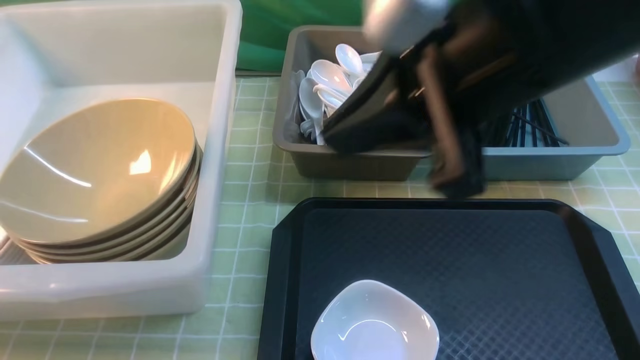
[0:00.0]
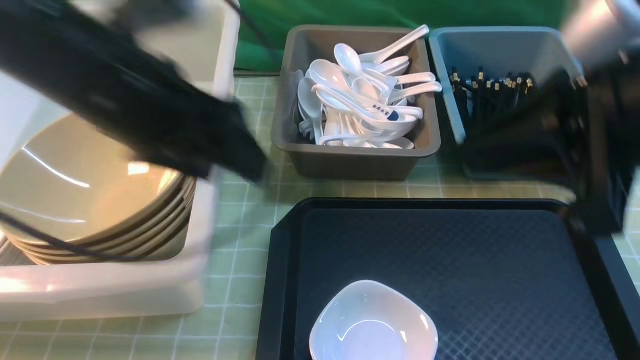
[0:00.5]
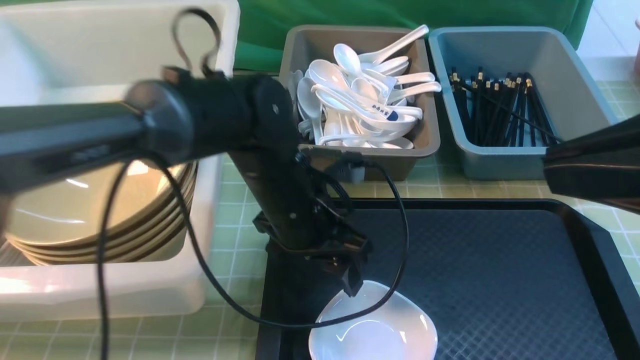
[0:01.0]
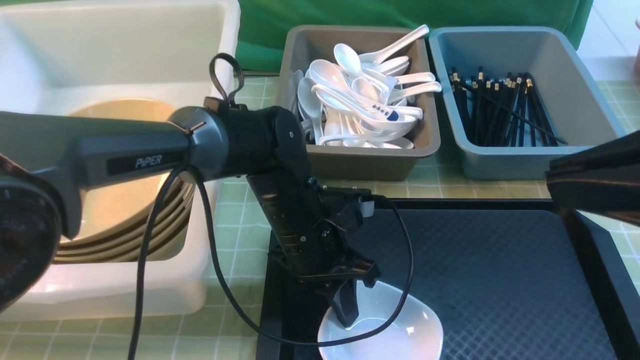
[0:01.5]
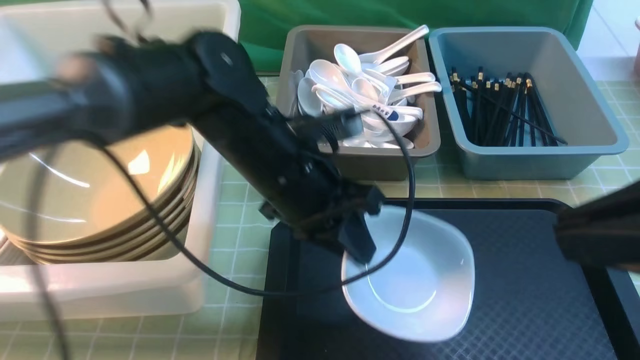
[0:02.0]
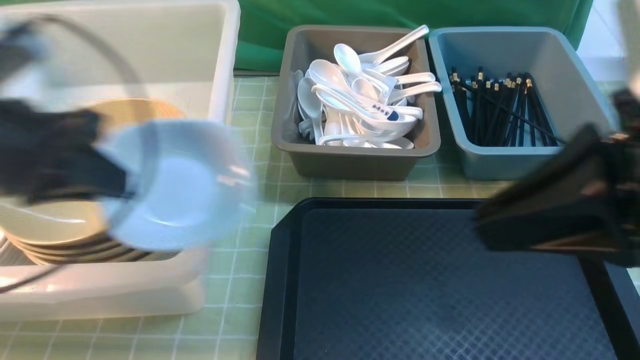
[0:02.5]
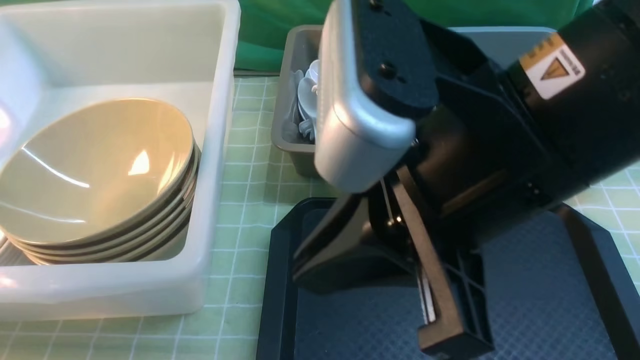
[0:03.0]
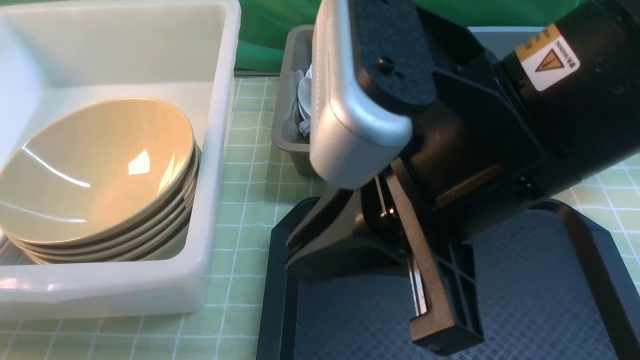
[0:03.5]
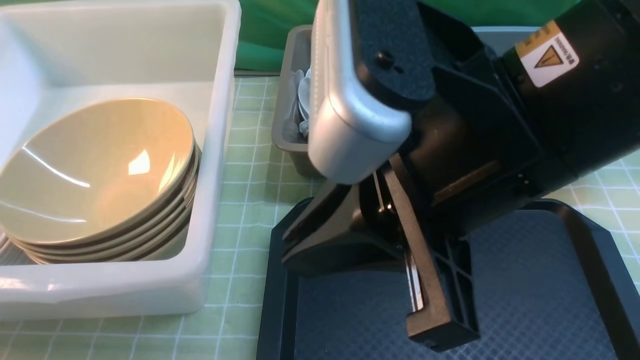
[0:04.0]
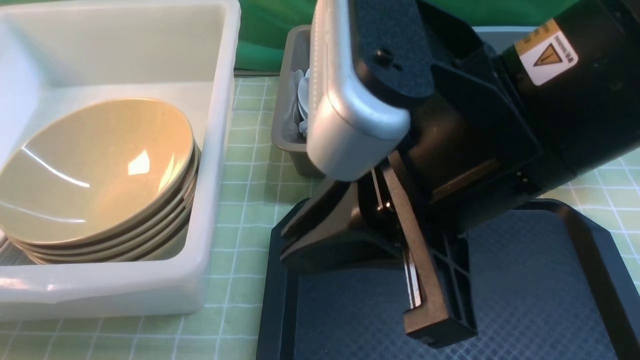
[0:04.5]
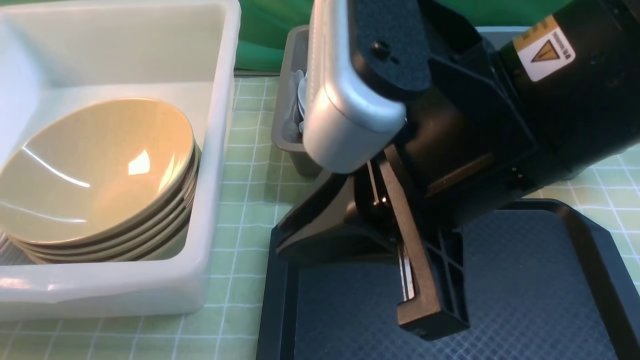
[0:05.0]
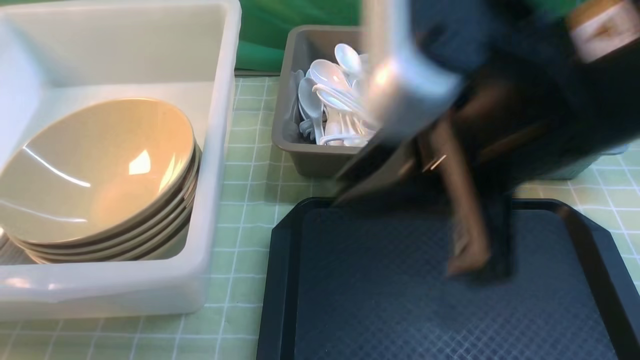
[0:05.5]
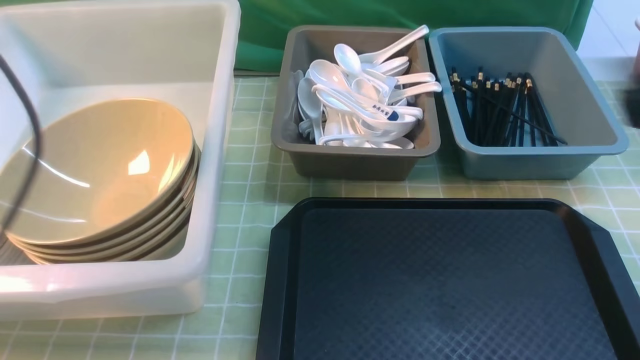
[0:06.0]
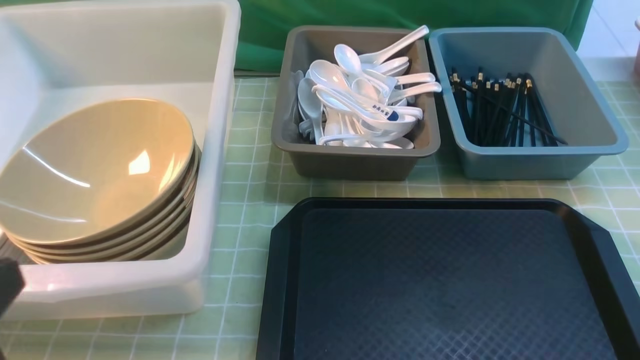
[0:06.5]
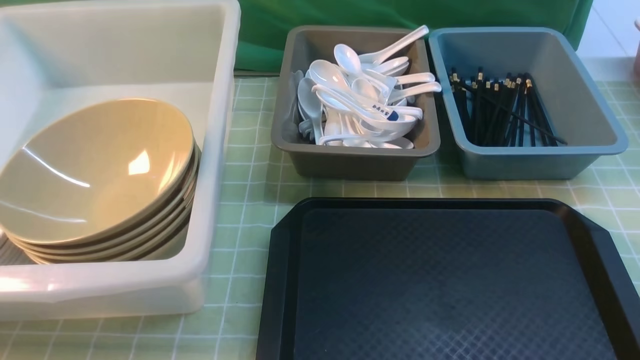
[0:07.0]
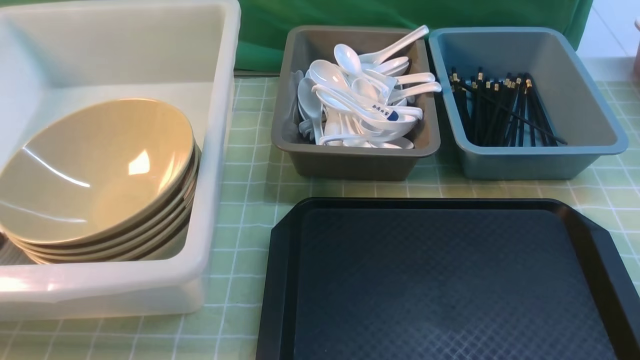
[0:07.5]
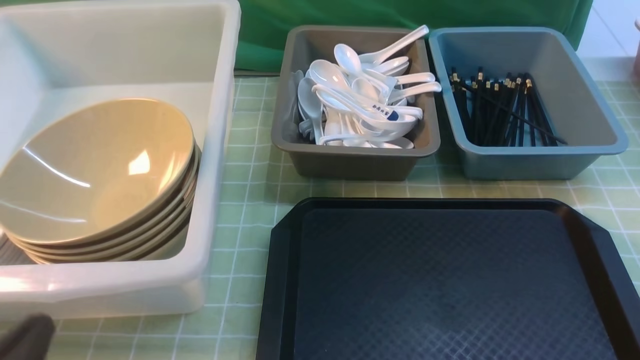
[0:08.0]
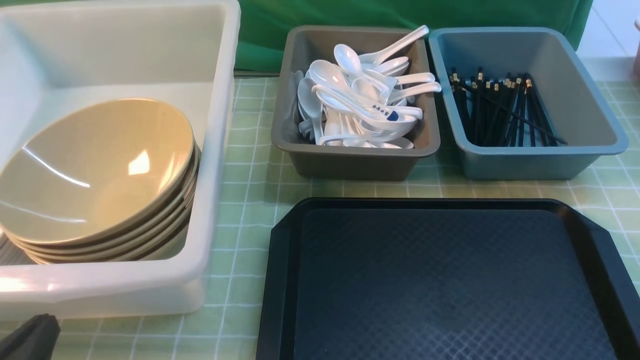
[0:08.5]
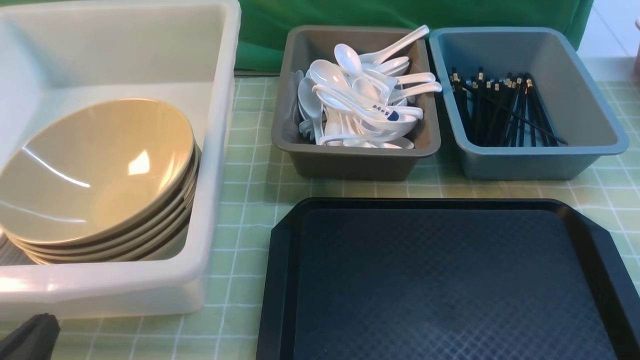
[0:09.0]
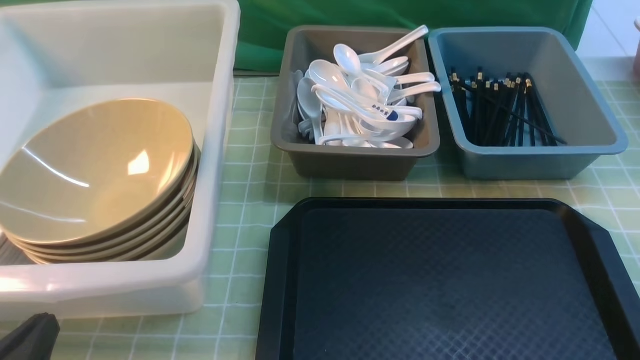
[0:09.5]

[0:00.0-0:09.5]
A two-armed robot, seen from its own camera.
Task of the whole recording: on green table put chopsticks spoon bowls plates into blue grey white boxes.
Step, 0:00.0 to 0:02.0: use the left arm to grab the plate.
Step, 0:02.5 to 0:05.5: use the left arm to put the plate into the large storage box on the left.
0:00.0 to 0:02.0: The left gripper moves to the right, roughly 35 cm, and closes its fingers. The right gripper shifts some 15 cm backward and to the right.
0:02.0 to 0:04.0: The left gripper is displaced to the left by approximately 40 cm. The right gripper goes some 15 cm to the left.
0:04.0 to 0:05.5: The right gripper moves roughly 5 cm, while the left gripper travels to the right by some 5 cm, and opens.
0:05.5 to 0:07.5: The right gripper heads to the right, downward and backward, covering roughly 25 cm. Meanwhile the left gripper travels backward and to the right by about 20 cm, and closes.
0:07.5 to 0:09.5: The left gripper shifts roughly 10 cm downward.

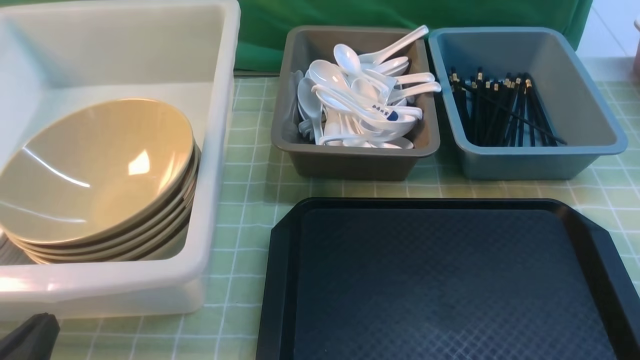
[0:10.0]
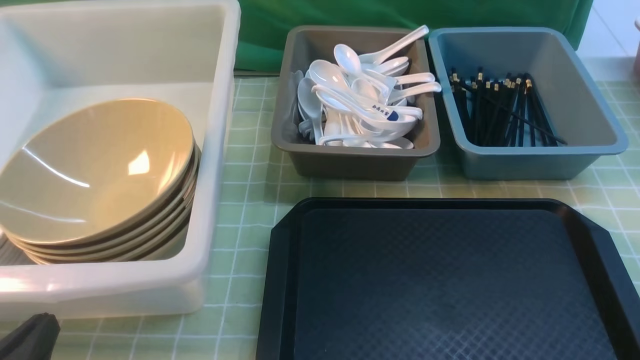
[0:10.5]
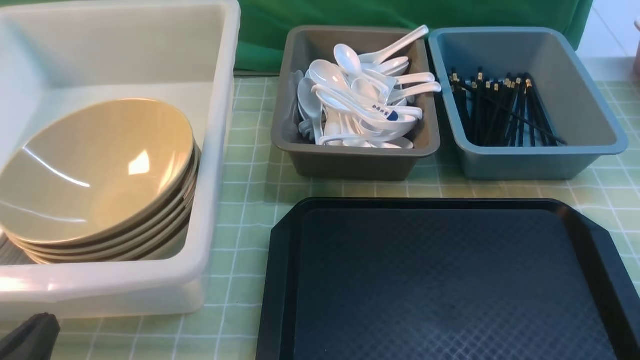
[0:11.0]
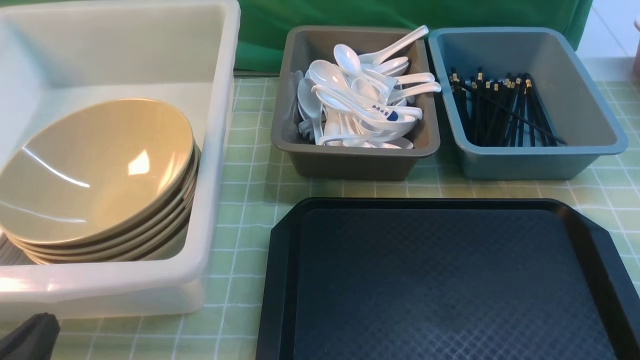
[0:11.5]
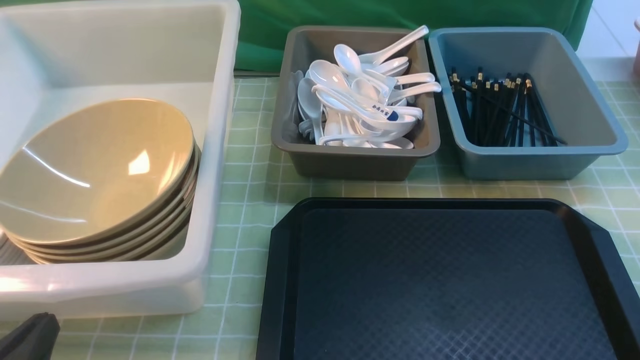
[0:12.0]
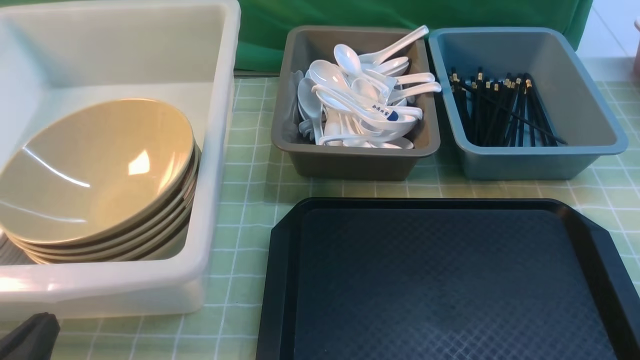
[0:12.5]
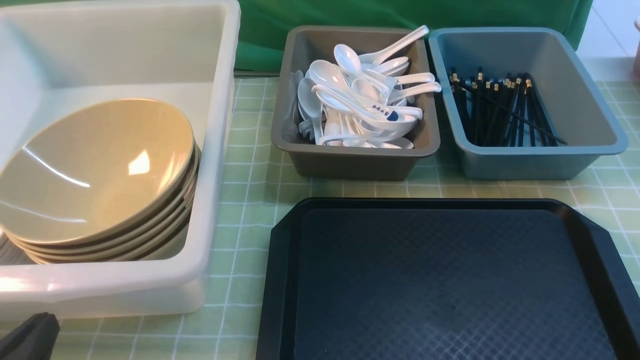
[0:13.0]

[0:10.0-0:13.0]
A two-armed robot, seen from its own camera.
Task of the whole recording: on green table put chopsticks spoon bowls plates into blue grey white boxes.
0:10.0 to 0:13.0: Both grippers stay put.

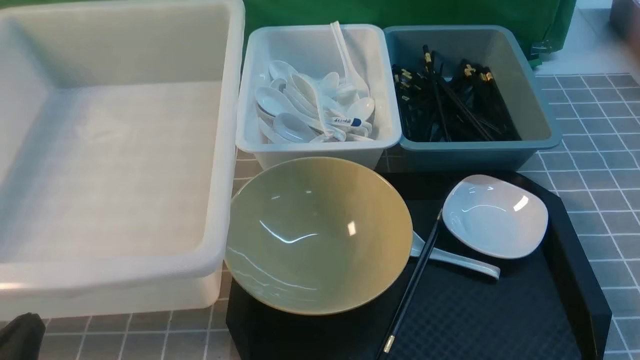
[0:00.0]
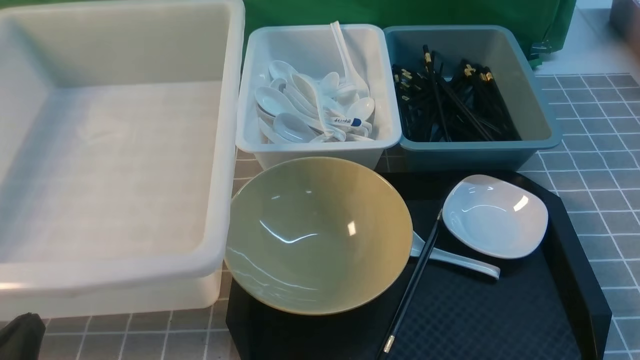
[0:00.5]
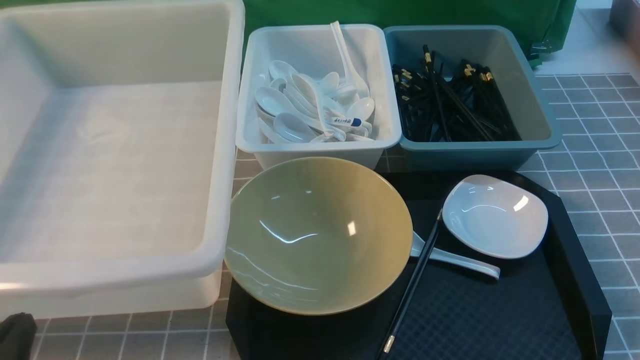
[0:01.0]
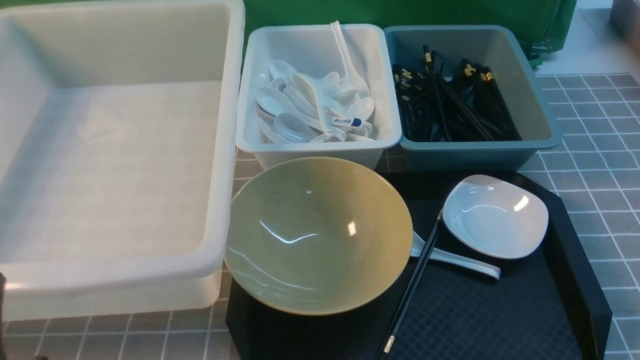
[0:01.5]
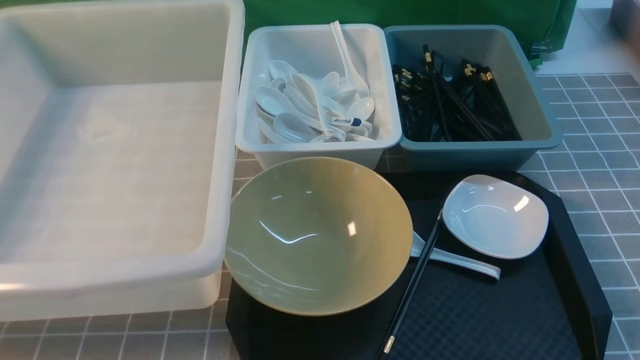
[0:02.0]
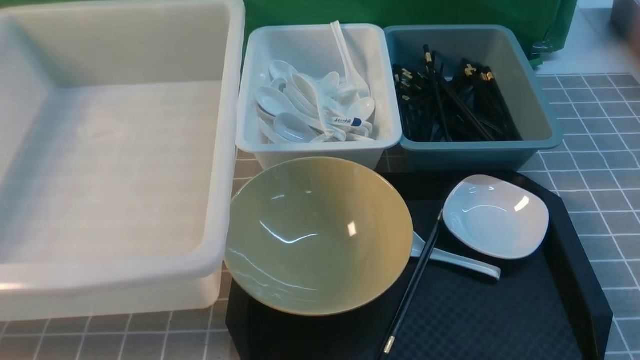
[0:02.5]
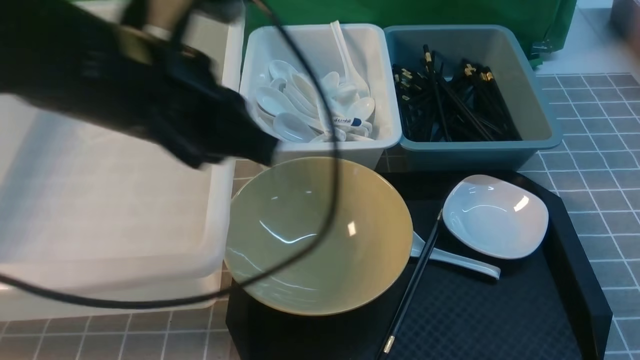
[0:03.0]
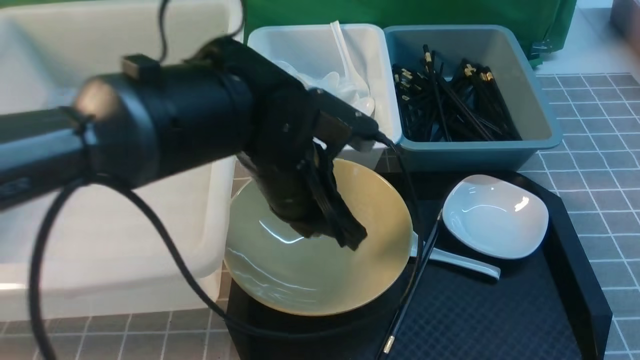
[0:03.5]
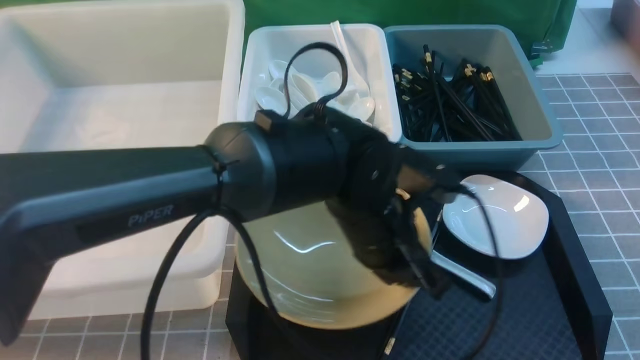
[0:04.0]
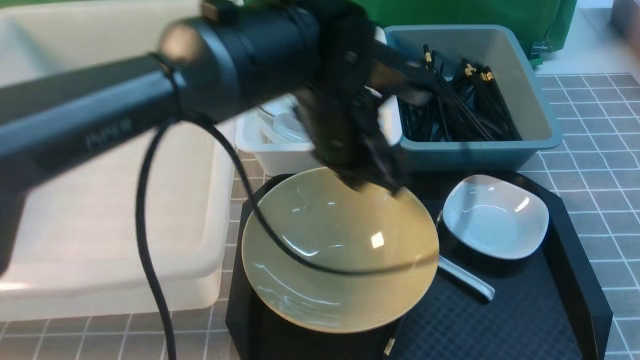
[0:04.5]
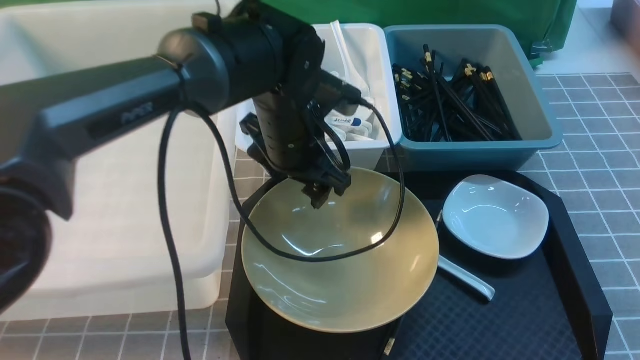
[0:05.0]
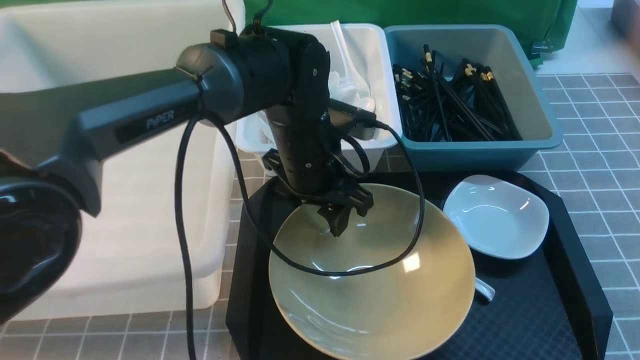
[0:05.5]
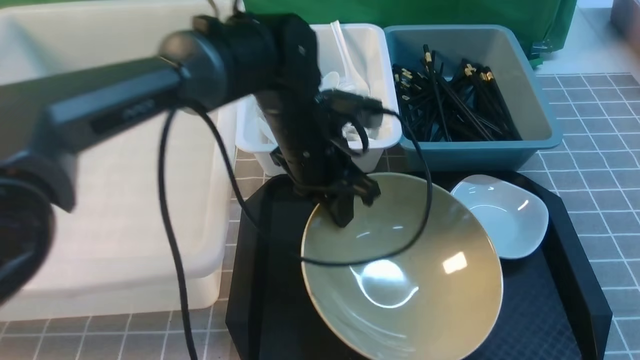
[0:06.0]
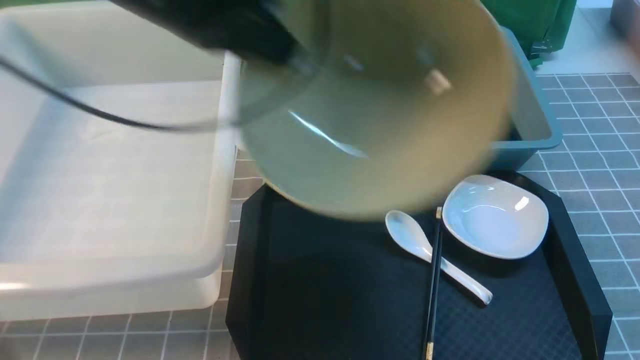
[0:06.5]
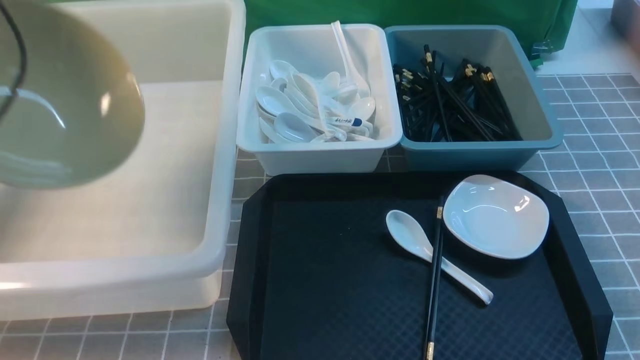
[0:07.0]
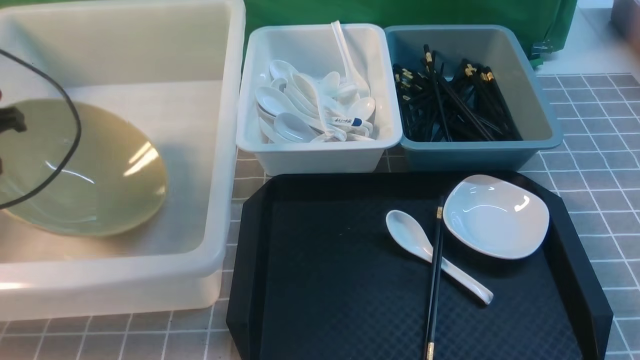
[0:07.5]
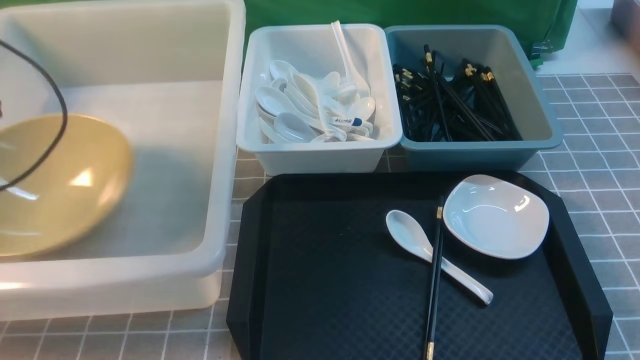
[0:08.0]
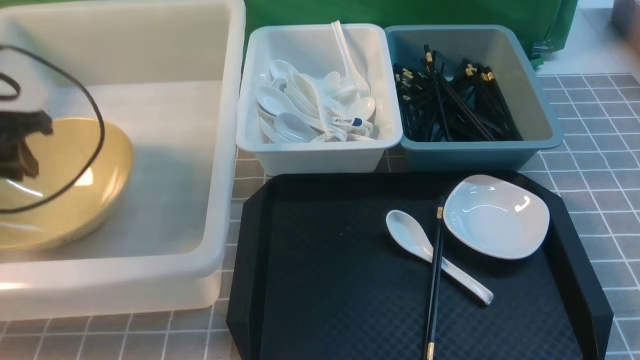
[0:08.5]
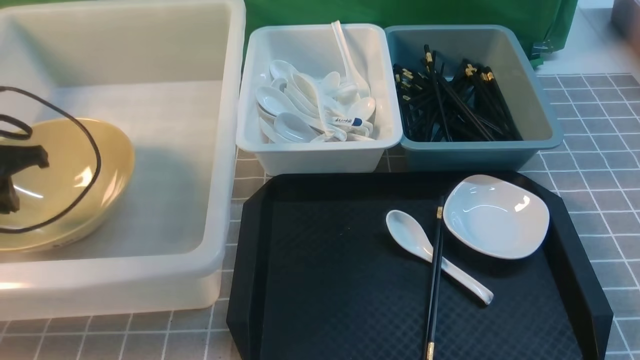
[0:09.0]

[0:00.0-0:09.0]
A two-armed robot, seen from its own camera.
Task of the whole recording: on grey table put chopsticks spoon bowls plates into blue grey white boxes.
Step, 0:00.0 to 0:05.5: use the left arm to grab the yellow noodle bowl on the left.
Step, 0:06.0 to 0:08.5: use the left arm to put the noodle bowl into the large storage box on the left.
0:02.0 to 0:04.5: The left gripper is displaced to the right and forward by roughly 40 cm. Meanwhile the right gripper closes its fingers.
0:04.5 to 0:07.0: The left gripper shifts approximately 35 cm to the left, and opens, then closes once more.
0:07.0 to 0:09.0: The left gripper is displaced downward by roughly 15 cm, and opens and closes again.
